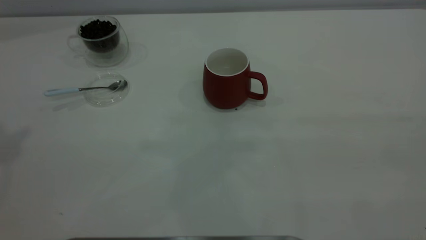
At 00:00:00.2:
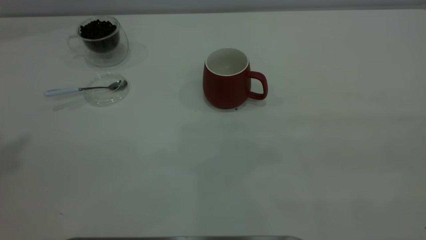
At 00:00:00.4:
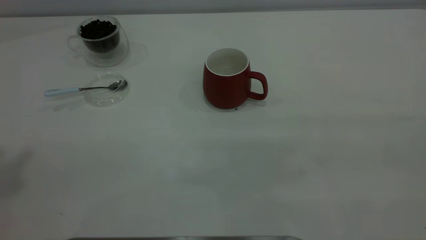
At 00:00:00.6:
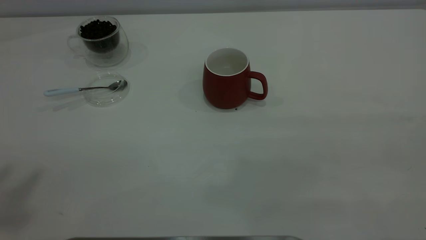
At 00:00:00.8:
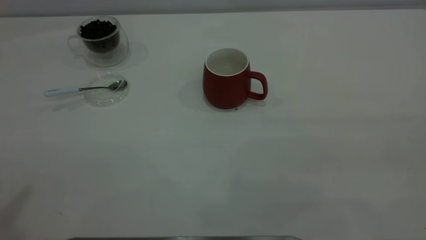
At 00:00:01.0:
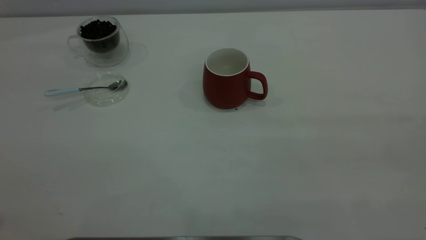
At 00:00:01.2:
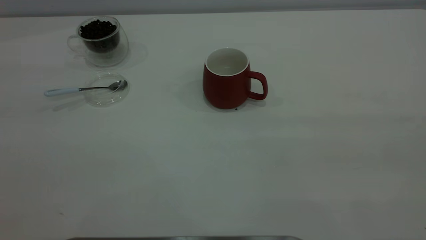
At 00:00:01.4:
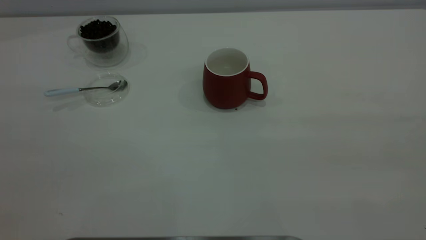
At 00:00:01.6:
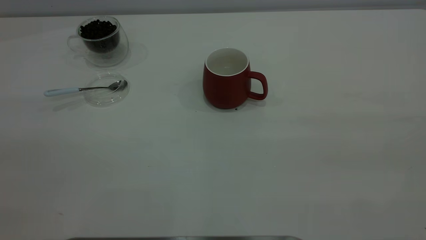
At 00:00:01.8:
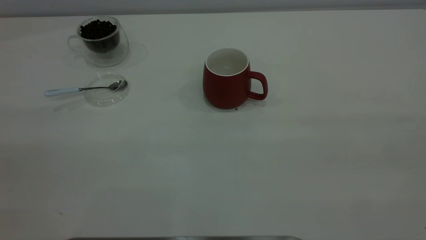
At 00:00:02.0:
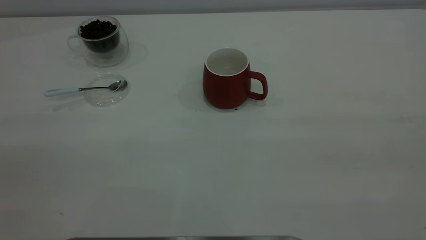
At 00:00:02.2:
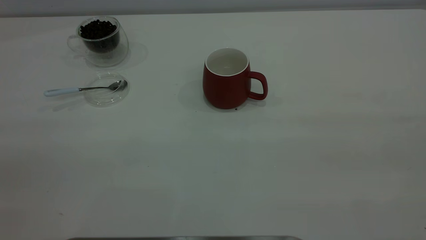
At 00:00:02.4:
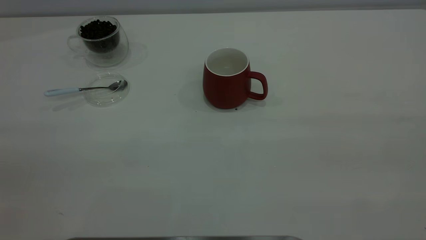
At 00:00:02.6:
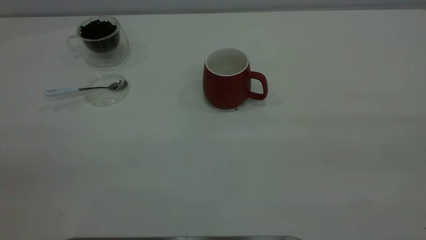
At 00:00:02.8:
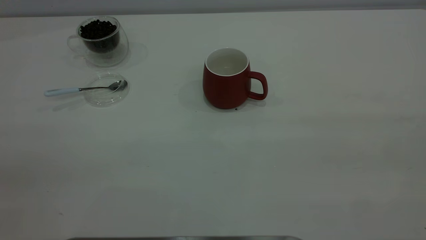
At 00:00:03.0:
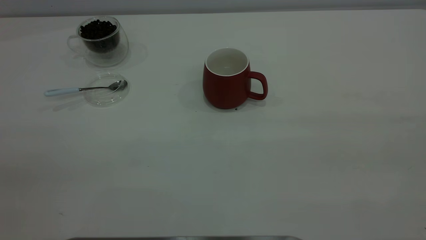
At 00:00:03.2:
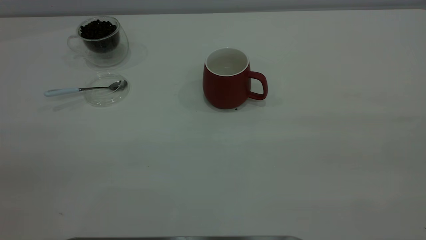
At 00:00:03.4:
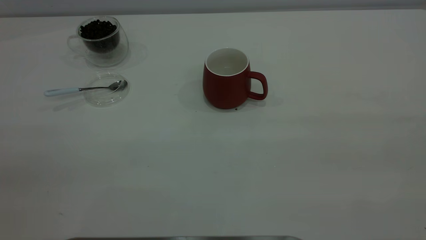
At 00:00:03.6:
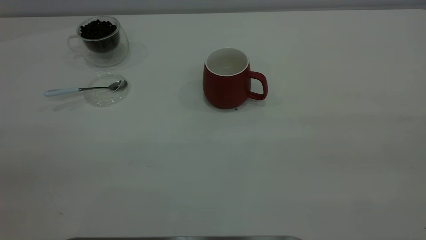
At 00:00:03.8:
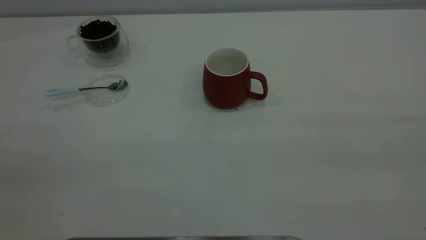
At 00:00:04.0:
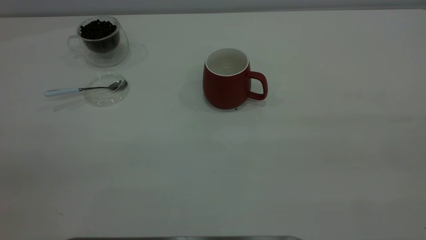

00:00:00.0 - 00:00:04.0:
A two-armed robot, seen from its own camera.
Task of the whole recording: the right gripper place the red cup in the center of the table, the left gripper take the blue spoon from the cup lid and scoop out the coffee beans from the coffee cup and put them into the red cup, the left gripper put the spoon back into the cup lid.
00:00:02.6 - 00:00:04.0: Neither gripper changes place.
